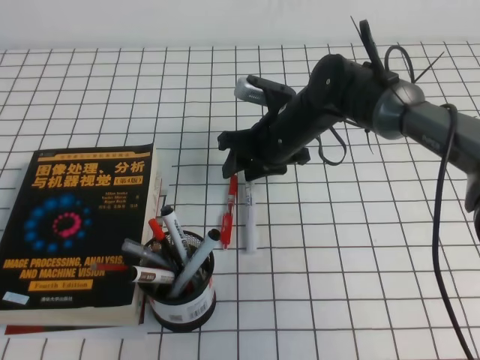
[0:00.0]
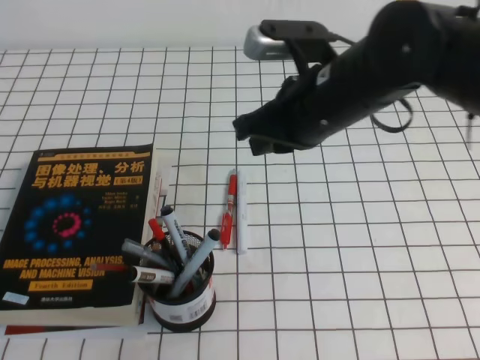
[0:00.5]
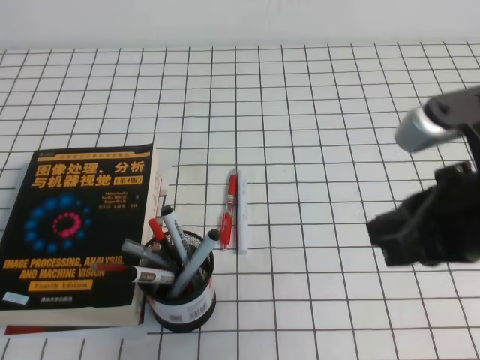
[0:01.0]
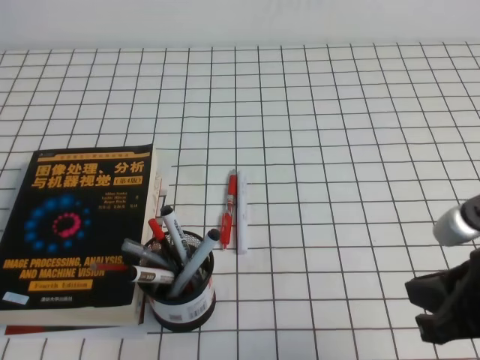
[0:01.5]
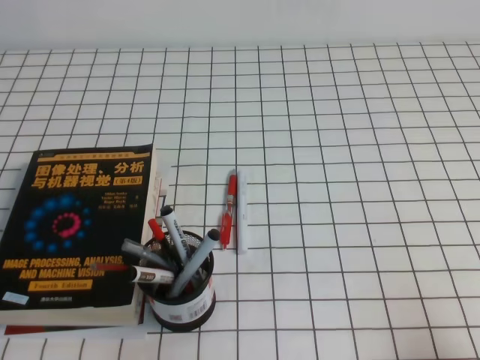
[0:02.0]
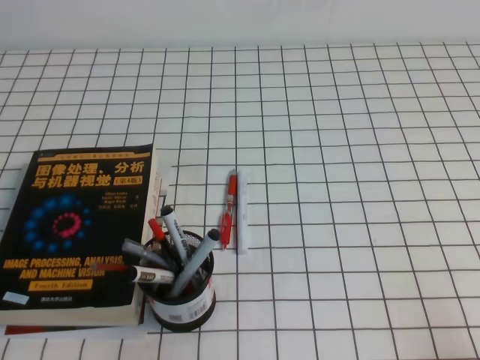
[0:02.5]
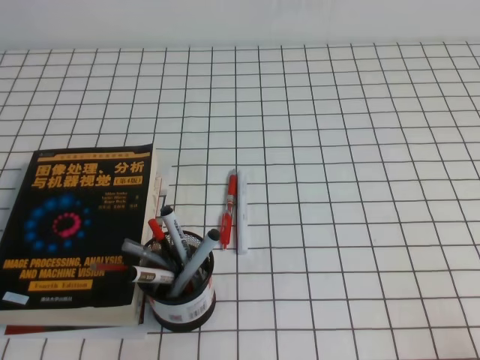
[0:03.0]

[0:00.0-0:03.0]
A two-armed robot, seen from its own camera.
Step, 0:00.0 to 0:03.0: Pick up the pen from the pen holder.
0:00.0 to 0:01.5: The right gripper goes about 35 cm backward and to the right, and closes up.
0:01.5 to 0:03.0: The right gripper heads downward, to the right and backward, covering some 15 cm.
